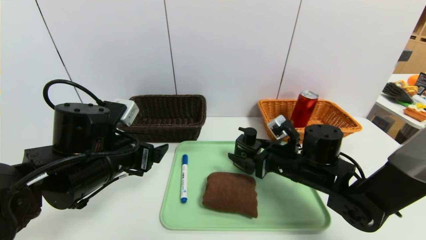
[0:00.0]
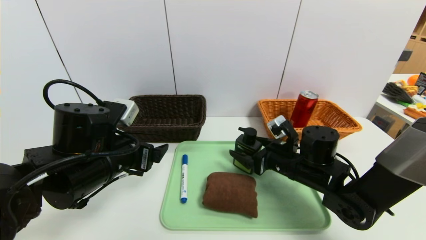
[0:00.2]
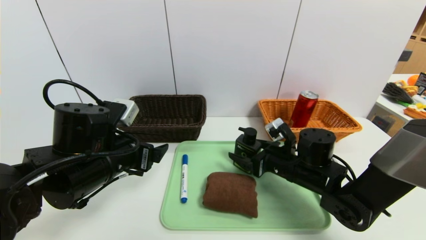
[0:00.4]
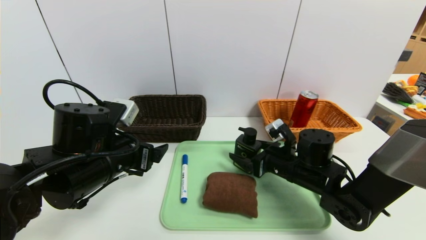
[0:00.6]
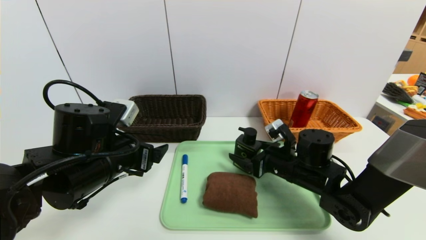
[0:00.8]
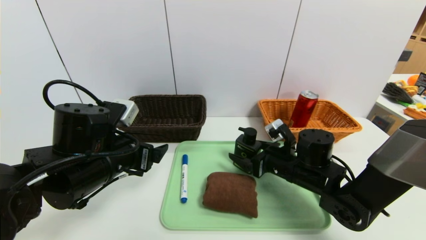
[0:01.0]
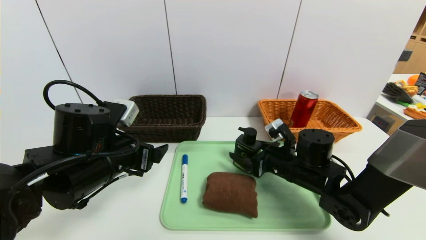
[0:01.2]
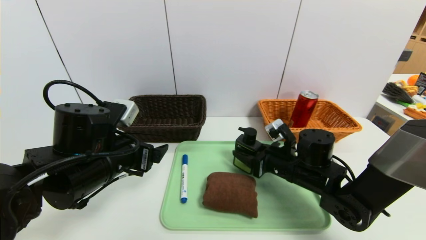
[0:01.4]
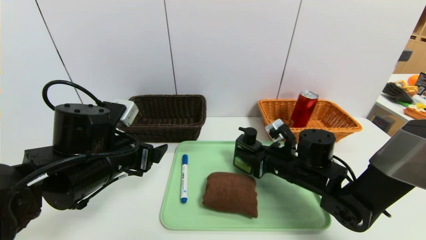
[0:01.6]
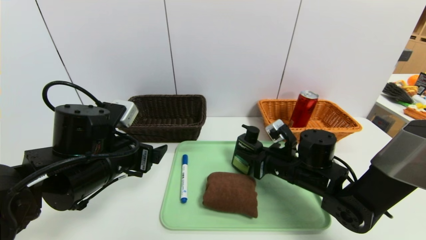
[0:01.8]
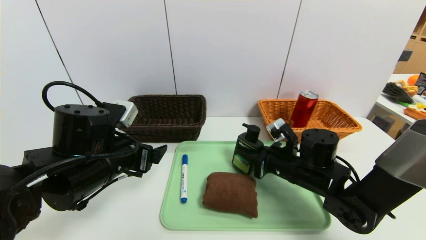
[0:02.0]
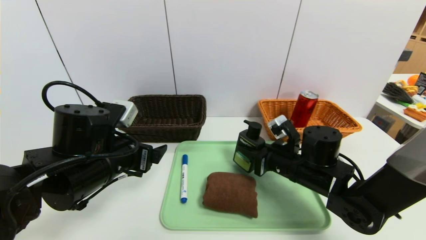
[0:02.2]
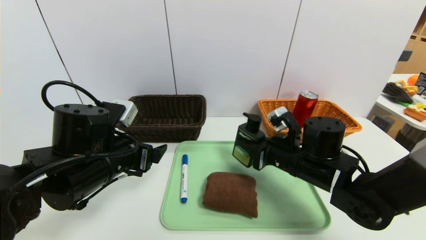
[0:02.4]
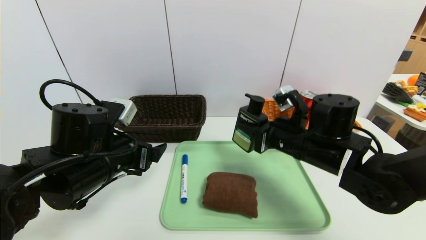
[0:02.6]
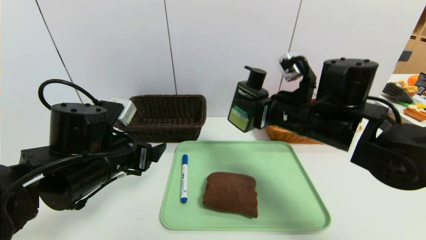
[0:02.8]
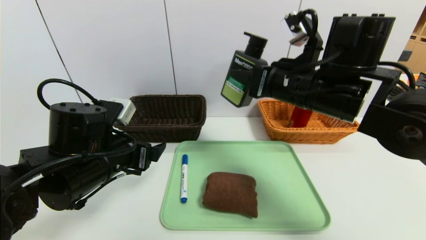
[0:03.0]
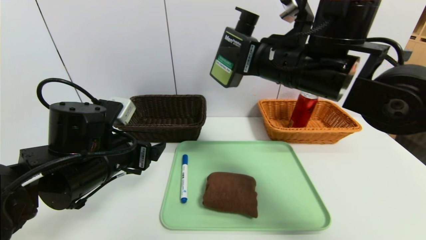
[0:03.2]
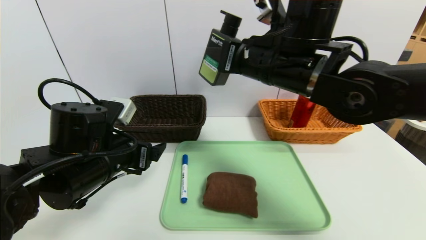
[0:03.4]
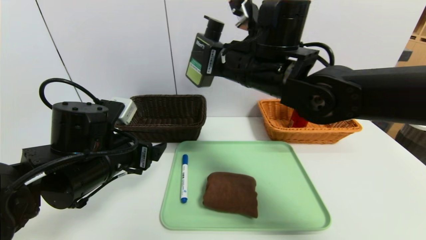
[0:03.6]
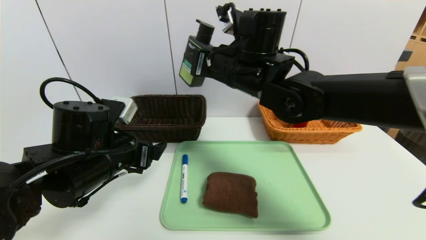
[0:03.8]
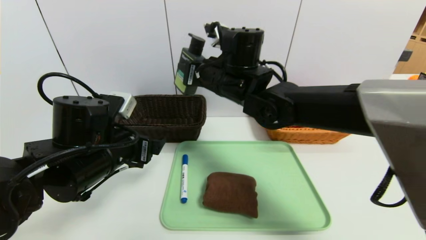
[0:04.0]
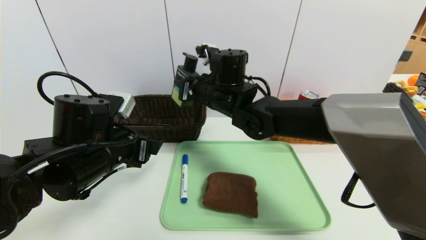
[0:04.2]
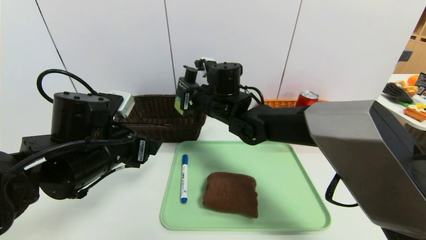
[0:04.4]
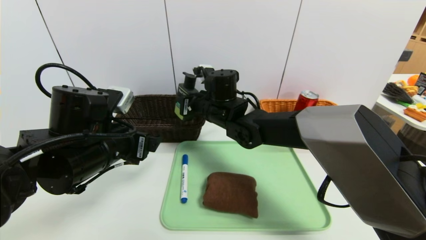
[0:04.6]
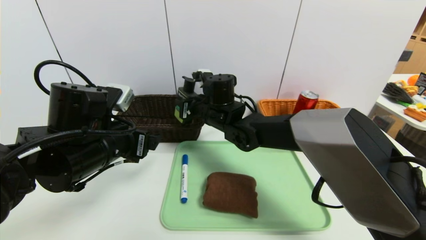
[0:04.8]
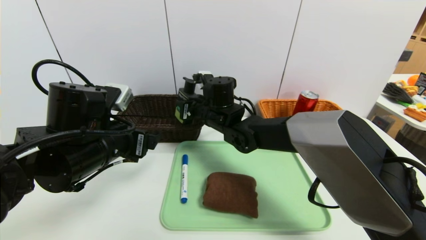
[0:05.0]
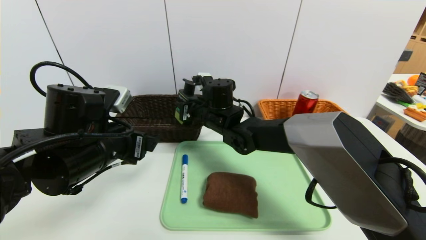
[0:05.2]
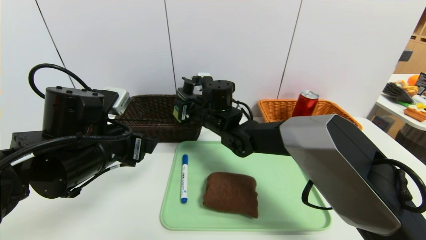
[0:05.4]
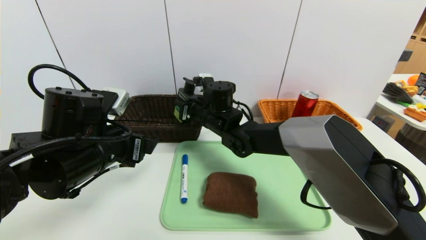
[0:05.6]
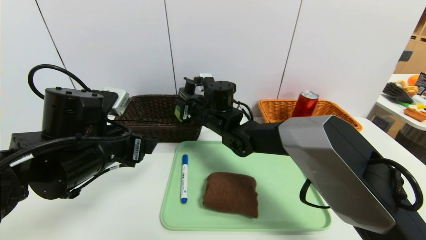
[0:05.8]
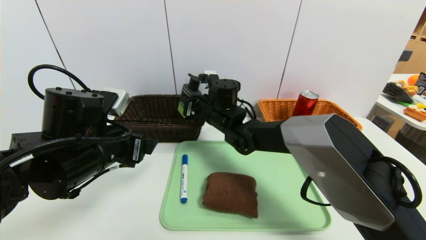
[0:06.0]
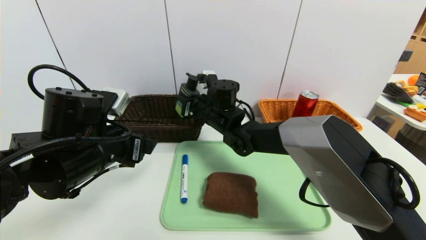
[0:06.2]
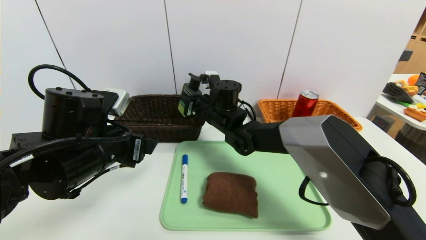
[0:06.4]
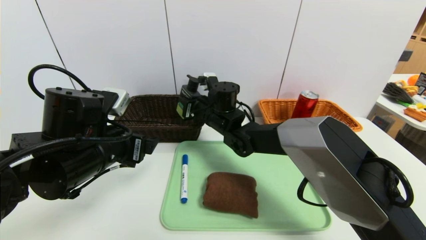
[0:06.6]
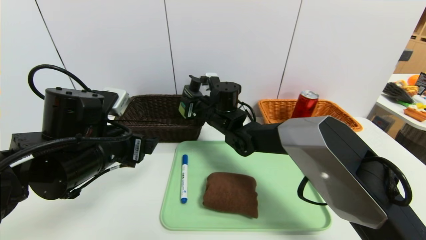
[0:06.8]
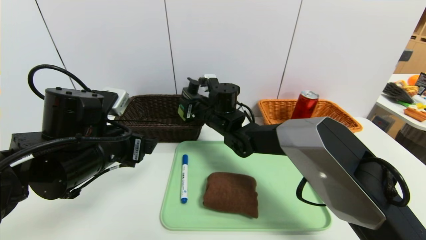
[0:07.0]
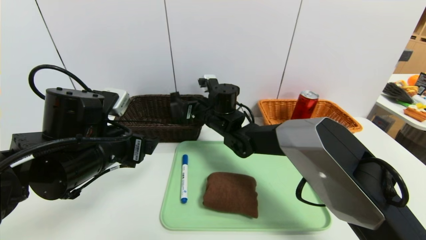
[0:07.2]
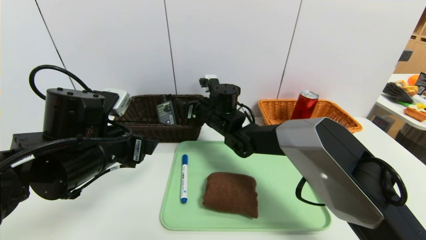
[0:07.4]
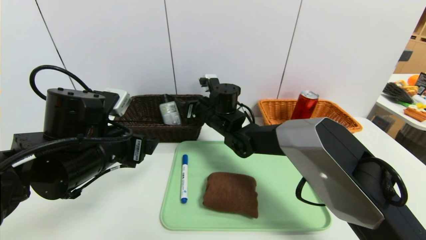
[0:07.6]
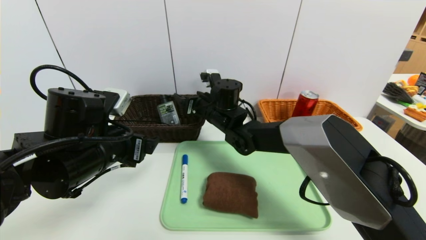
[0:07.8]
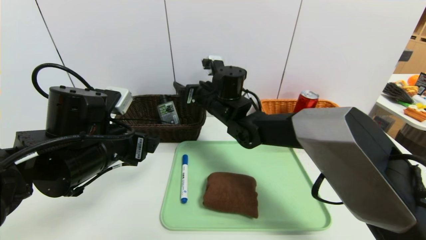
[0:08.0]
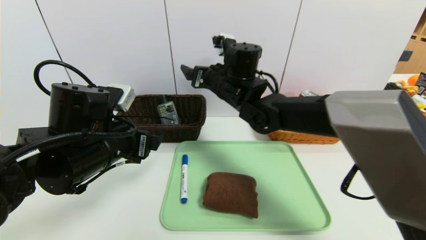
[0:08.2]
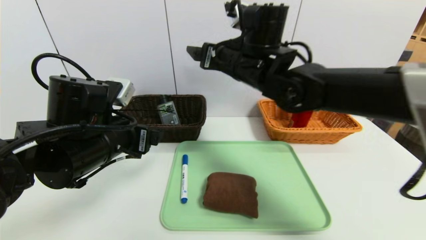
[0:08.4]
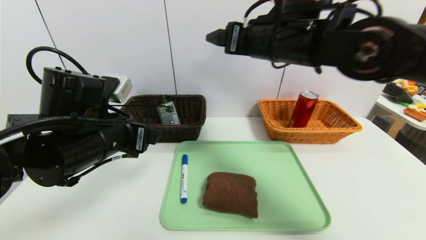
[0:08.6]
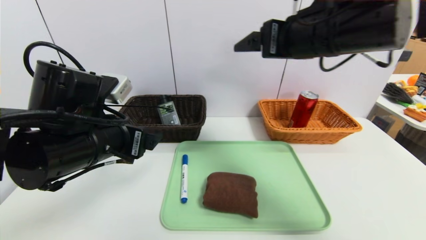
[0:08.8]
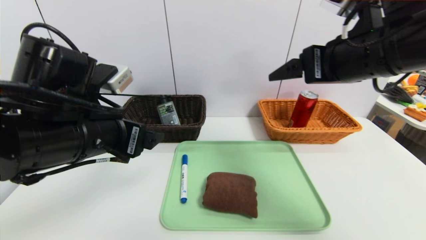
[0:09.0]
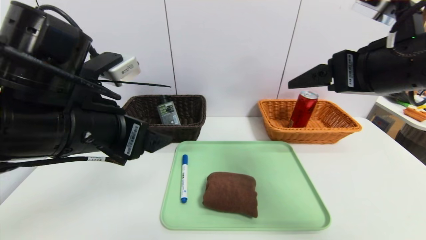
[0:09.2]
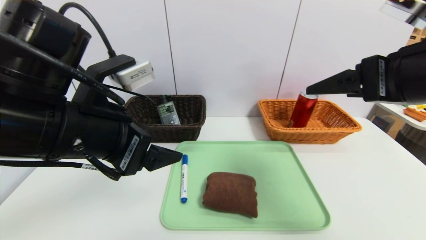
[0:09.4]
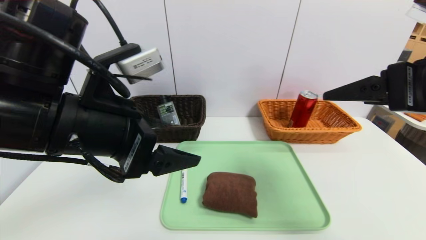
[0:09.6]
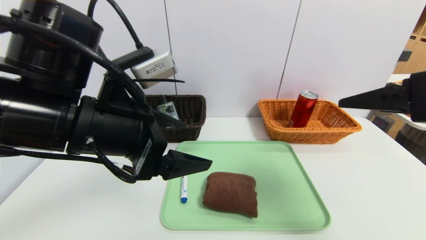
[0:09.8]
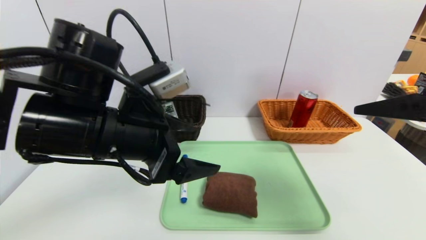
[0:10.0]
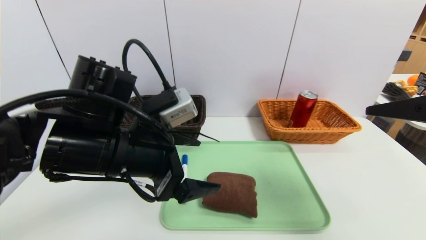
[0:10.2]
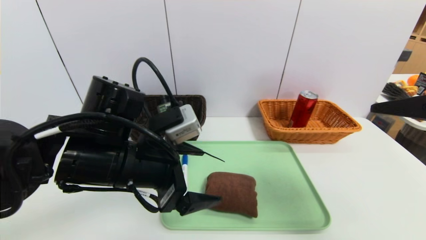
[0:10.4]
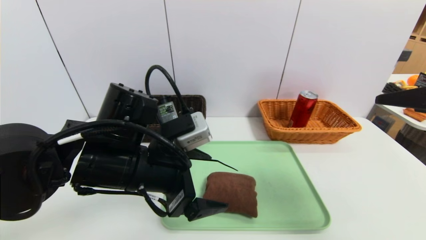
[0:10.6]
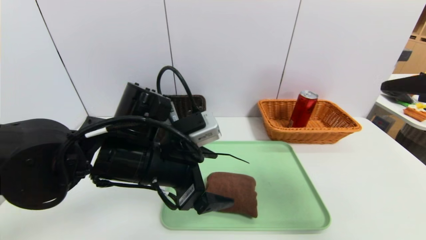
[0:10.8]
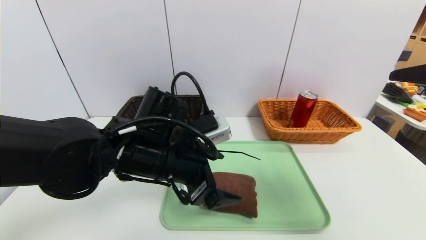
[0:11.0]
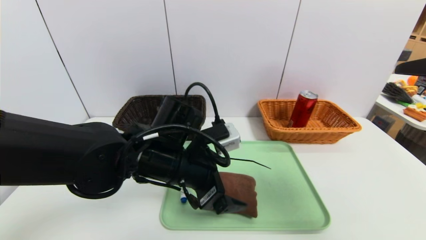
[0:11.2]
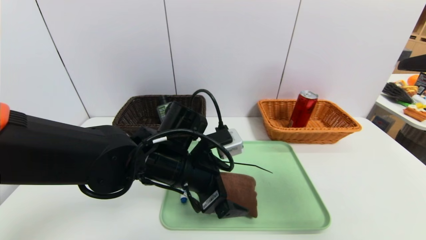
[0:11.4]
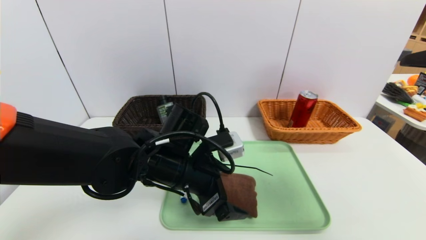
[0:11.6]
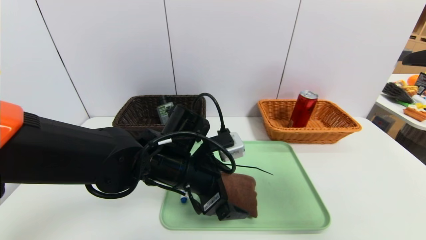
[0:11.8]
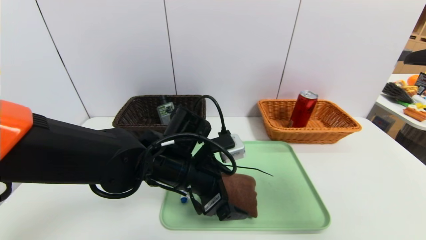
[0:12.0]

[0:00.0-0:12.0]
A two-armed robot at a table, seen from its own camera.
Task of the whole recording: place the food in the right basket with the right gripper, and place the non food items in the left basket with the left gripper.
0:00.0 to 0:01.6: The right gripper closes its fingers.
0:01.6 to 0:03.0: The right gripper travels upward by roughly 20 cm.
0:03.0 to 0:04.4: The right gripper is displaced to the left, forward and downward by some 20 cm.
0:06.0 to 0:07.6: The right gripper opens.
0:07.6 to 0:09.0: The right gripper is displaced upward, to the right and backward by roughly 35 cm. Meanwhile the left gripper travels upward by approximately 5 cm.
0:09.0 to 0:10.4: The right gripper heads backward and to the right, covering some 15 cm. Meanwhile the left gripper ends up about 5 cm from where it was.
0:10.4 to 0:12.0: The left gripper goes some 10 cm to the right and downward.

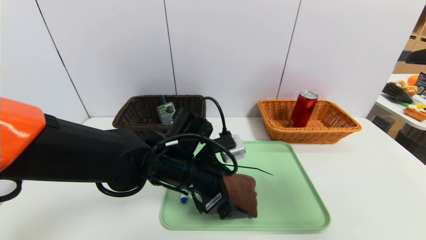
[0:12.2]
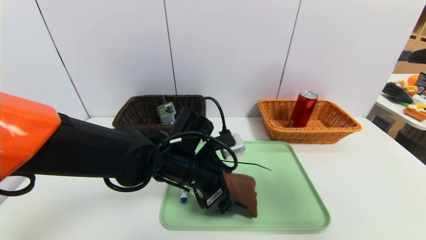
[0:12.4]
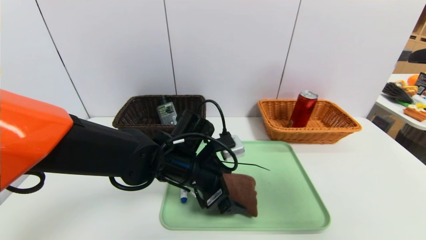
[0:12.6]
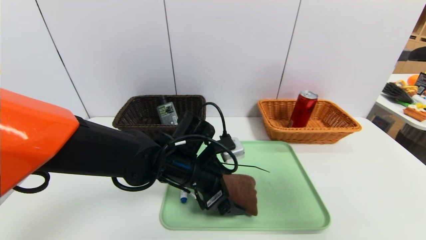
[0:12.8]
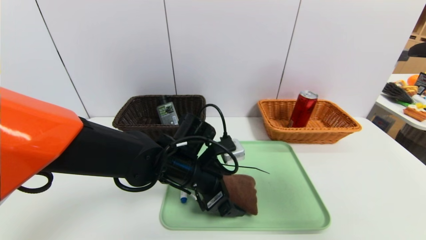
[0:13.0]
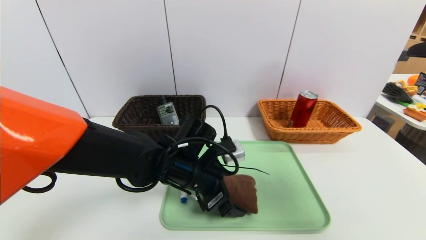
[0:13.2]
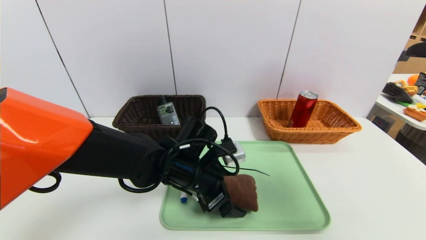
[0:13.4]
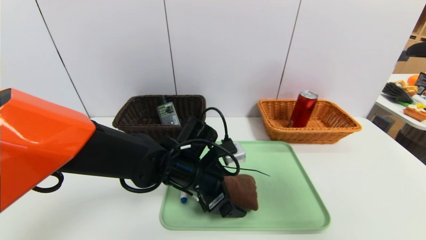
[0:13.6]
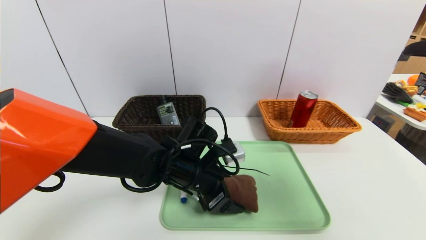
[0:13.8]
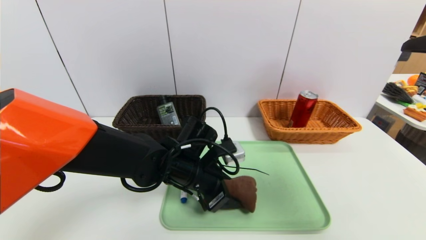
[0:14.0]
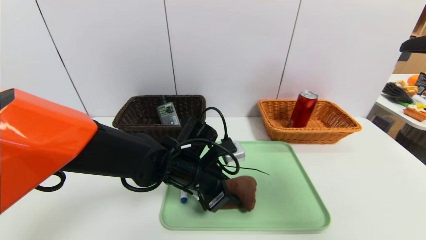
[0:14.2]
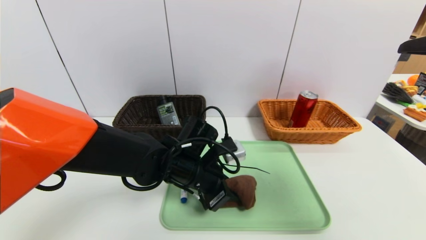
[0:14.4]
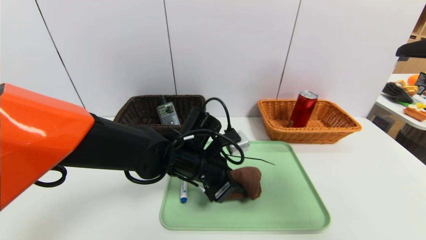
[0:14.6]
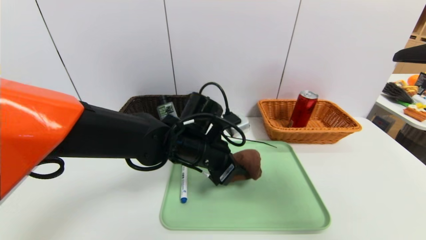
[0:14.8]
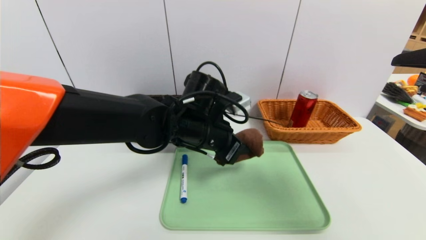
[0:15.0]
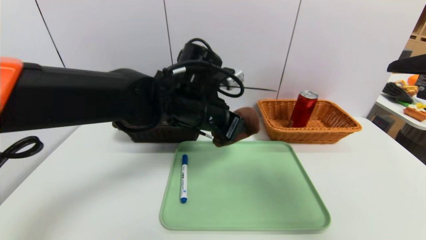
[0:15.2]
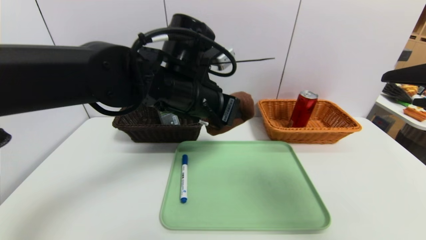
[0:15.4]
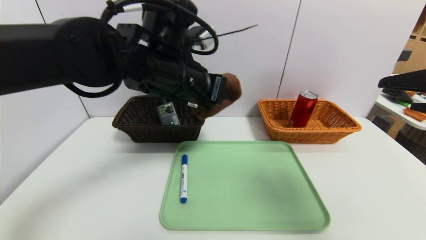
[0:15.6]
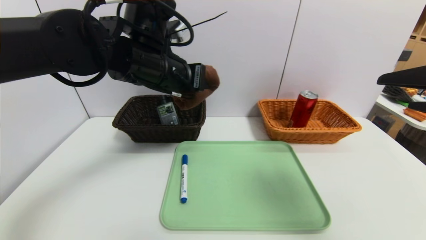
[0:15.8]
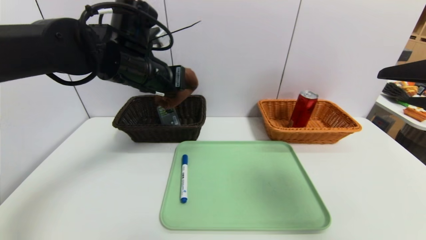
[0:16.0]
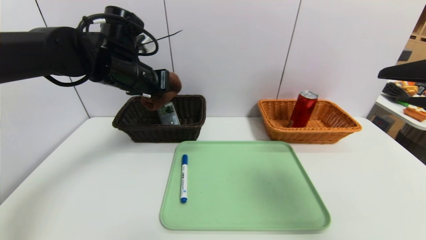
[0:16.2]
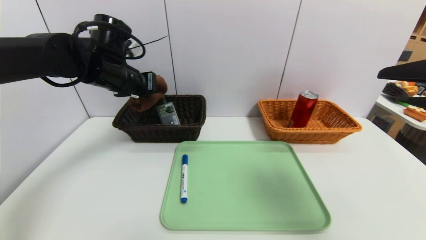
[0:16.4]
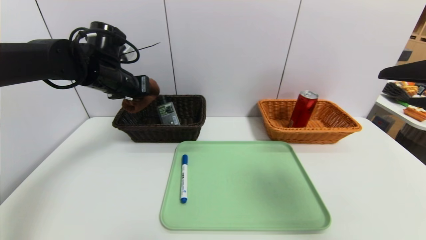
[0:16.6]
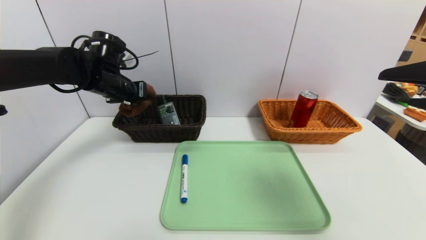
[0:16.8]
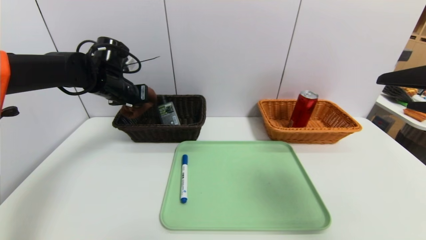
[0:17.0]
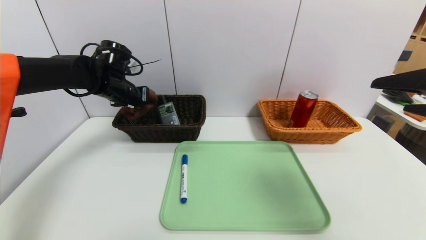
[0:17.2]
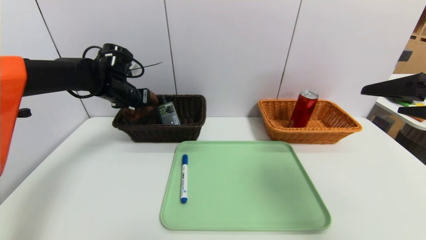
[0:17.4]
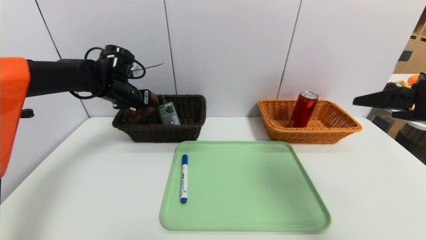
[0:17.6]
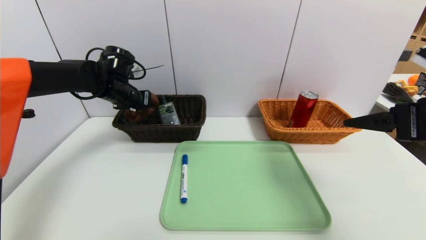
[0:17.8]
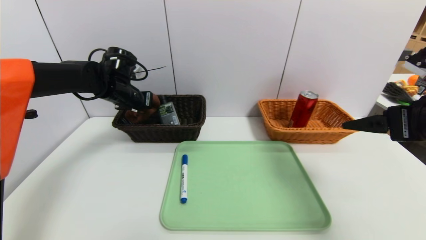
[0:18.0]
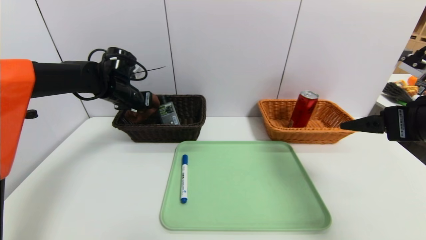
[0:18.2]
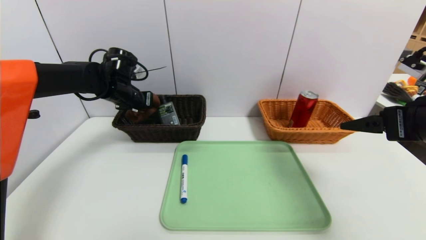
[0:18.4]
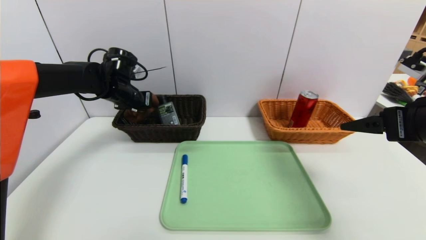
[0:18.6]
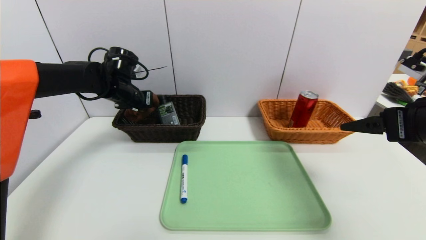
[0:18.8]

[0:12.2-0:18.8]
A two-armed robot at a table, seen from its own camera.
Task of the whole recording: place the food in the right basket with the right gripper, and place the non food items in the left basket with the left gripper.
0:12.2 to 0:13.8: The grippers make only small movements.
0:13.8 to 0:15.4: The left gripper shifts about 15 cm upward, and closes its fingers.
0:15.4 to 0:17.2: The left gripper heads to the left and forward, covering roughly 25 cm.
0:17.2 to 0:18.8: The right gripper heads forward and downward, covering some 10 cm.
